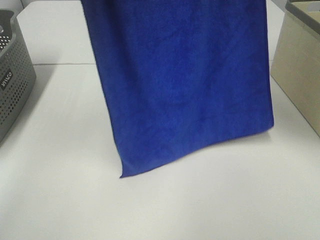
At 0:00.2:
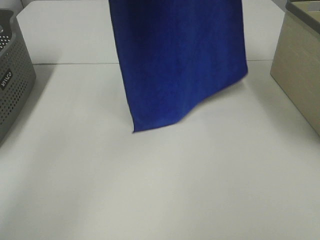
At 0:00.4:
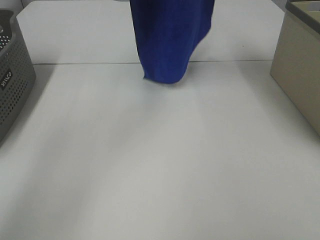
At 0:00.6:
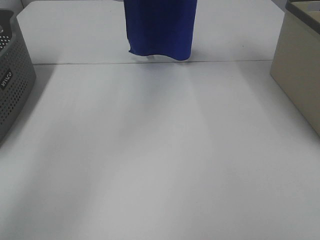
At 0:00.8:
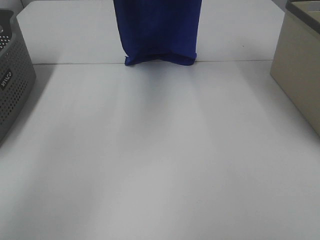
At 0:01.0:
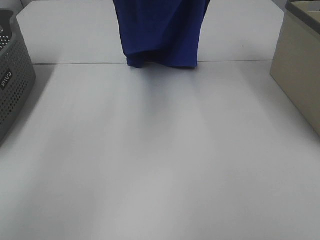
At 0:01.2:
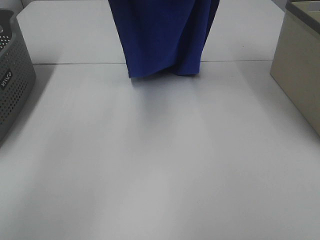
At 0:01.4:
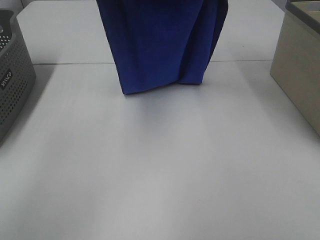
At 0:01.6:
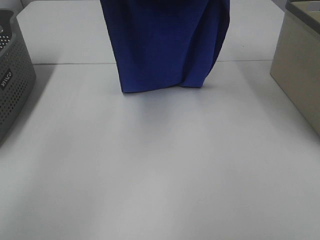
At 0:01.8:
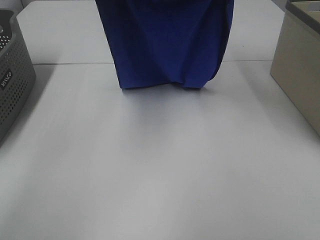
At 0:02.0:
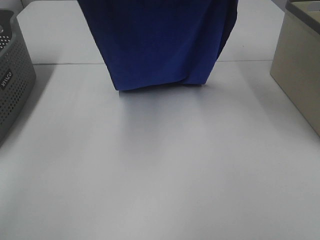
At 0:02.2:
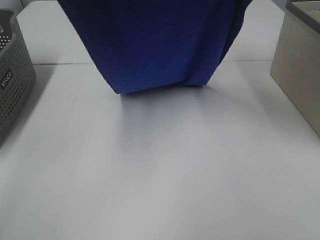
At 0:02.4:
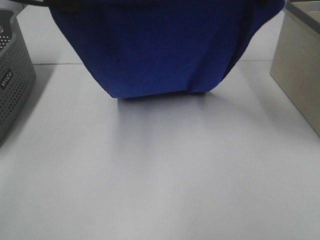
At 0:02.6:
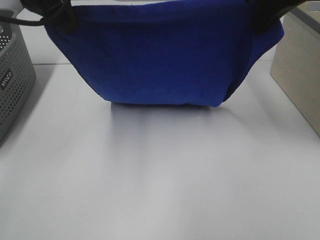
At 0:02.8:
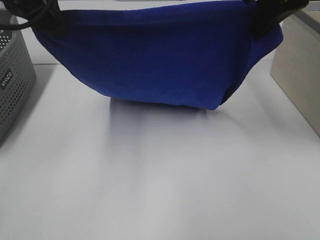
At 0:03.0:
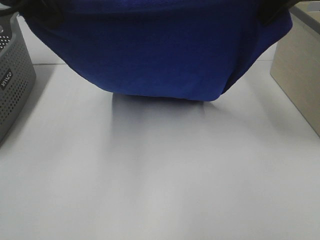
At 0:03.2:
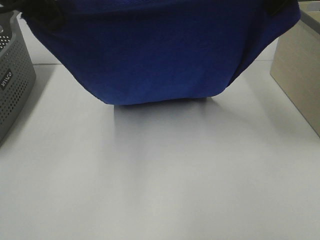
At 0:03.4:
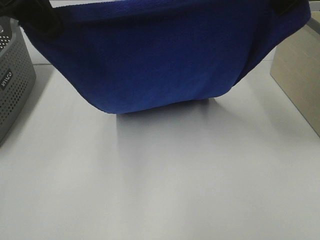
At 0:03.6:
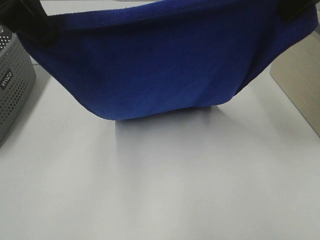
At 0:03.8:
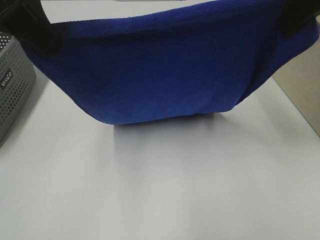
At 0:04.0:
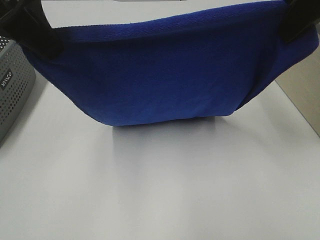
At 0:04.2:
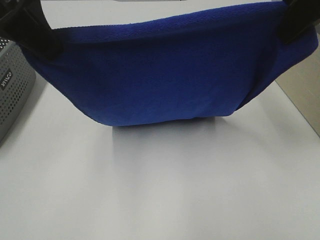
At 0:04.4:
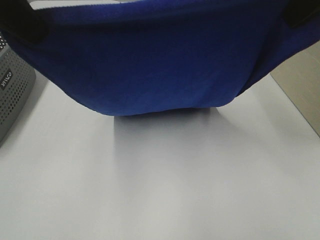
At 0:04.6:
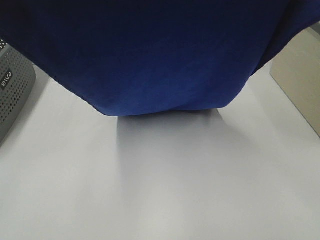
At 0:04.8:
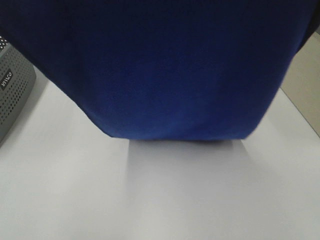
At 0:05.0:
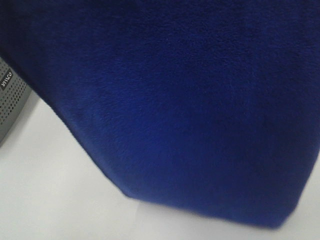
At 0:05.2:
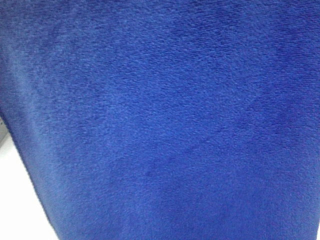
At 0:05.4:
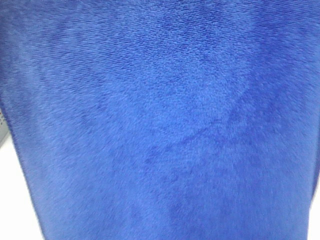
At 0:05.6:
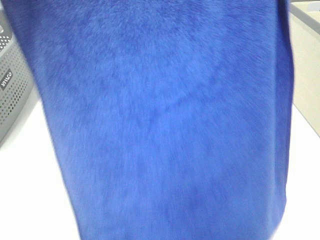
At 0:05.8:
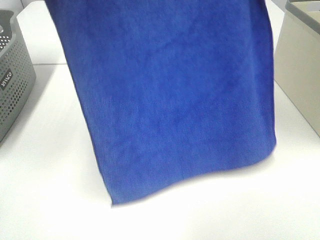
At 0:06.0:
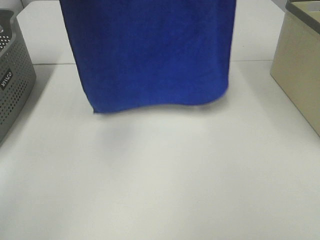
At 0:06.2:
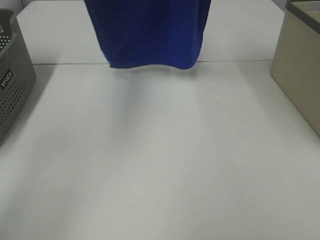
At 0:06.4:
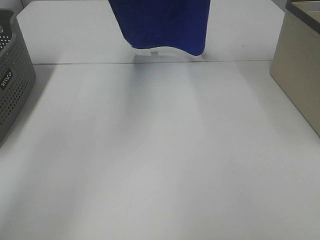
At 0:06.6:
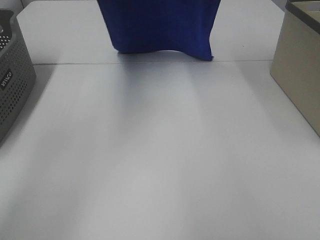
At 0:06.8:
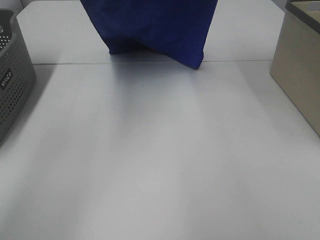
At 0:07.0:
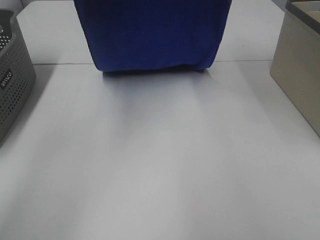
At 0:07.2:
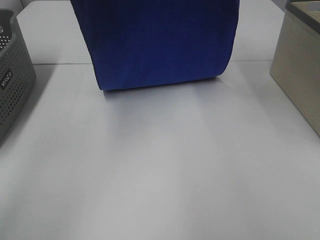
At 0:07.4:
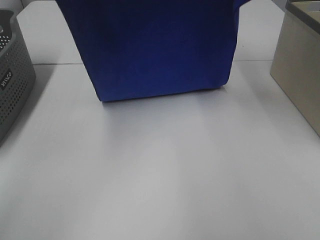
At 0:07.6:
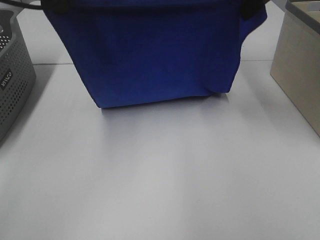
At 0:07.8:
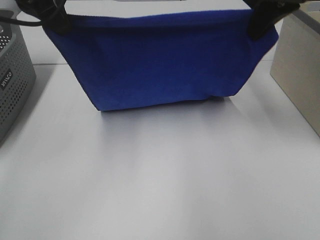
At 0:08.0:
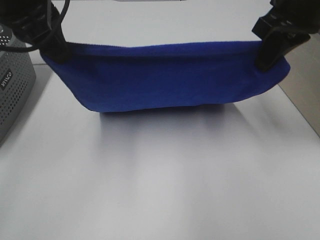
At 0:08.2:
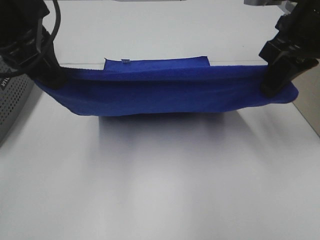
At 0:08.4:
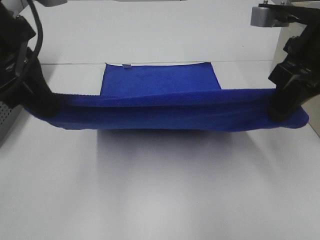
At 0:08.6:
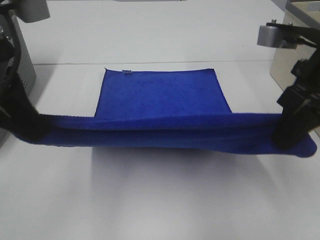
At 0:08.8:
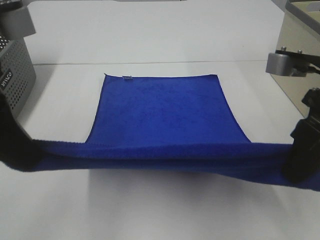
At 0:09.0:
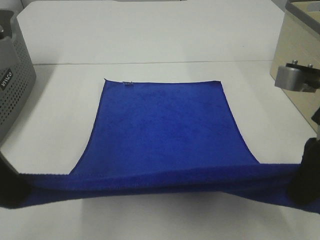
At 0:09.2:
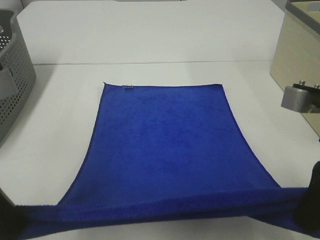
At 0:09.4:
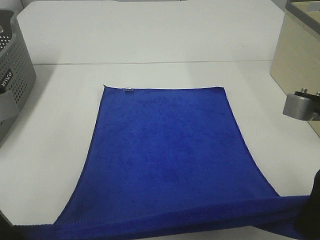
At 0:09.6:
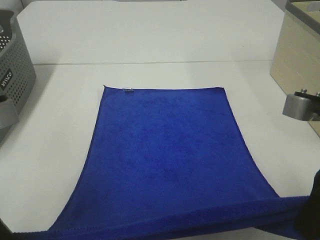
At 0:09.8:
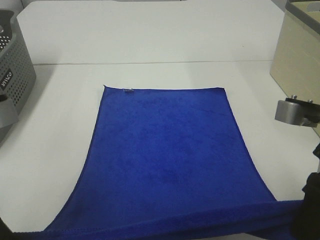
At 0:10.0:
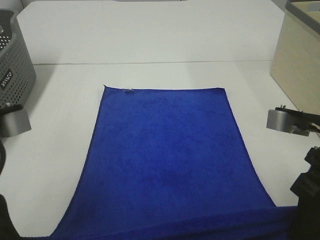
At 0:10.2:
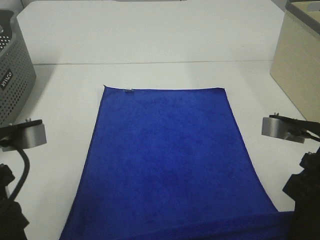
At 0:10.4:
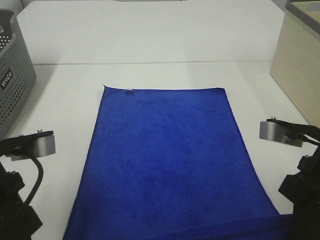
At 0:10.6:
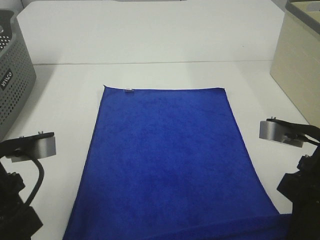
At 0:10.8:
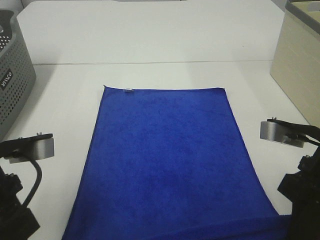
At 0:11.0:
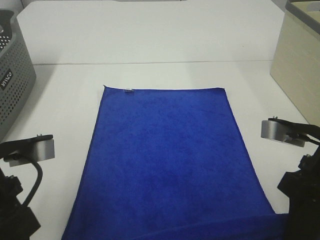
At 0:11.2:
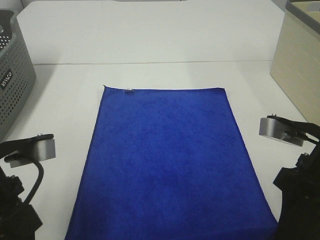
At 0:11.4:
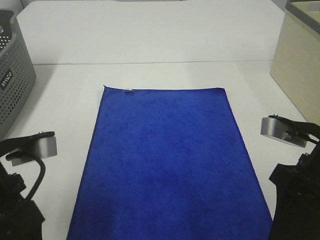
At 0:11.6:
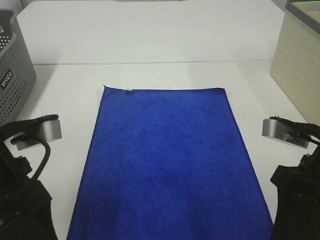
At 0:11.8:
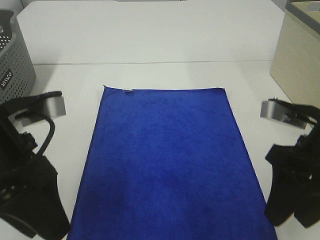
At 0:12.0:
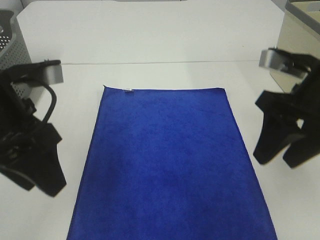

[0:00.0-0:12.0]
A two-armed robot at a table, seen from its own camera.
Task of the whole recording: Remove the towel and place it.
Step, 0:00.0 to 0:05.8: Left hand: spread the blue towel flat on the table.
Step, 0:00.0 to 0:05.8: Right hand: spread the blue towel flat on the table.
Step, 0:06.0 to 0:12.0: Left hand:adjust the blue towel.
Step, 0:06.0 to 0:12.0: Right hand:adjust the blue towel.
0:00.0 to 0:01.6: The right gripper goes approximately 10 cm downward and forward, while the left gripper heads downward, covering approximately 10 cm.
0:01.6 to 0:03.0: Both grippers move backward, roughly 10 cm.
0:03.0 to 0:04.4: Both grippers move backward, about 5 cm.
0:04.4 to 0:06.0: Both grippers move forward and upward, roughly 20 cm.
0:06.0 to 0:07.6: Both grippers travel together downward, some 15 cm.
0:07.6 to 0:09.0: The grippers both shift backward and downward by about 20 cm.
0:09.0 to 0:10.4: The two grippers go approximately 5 cm downward.
0:10.4 to 0:12.0: The grippers both shift forward and upward by about 10 cm. The left gripper opens its fingers; the right gripper opens up.

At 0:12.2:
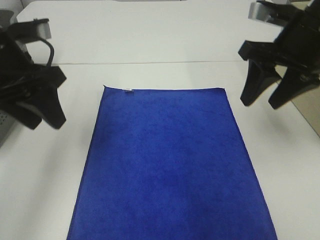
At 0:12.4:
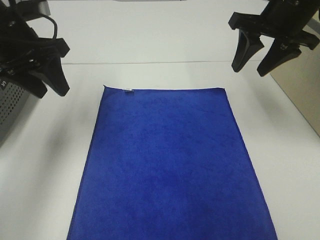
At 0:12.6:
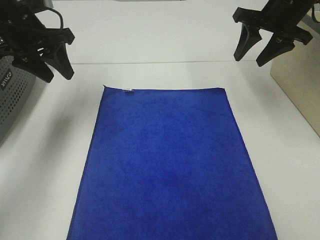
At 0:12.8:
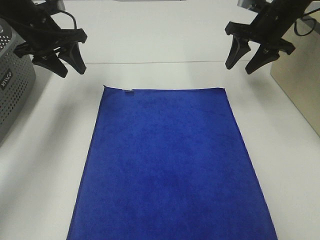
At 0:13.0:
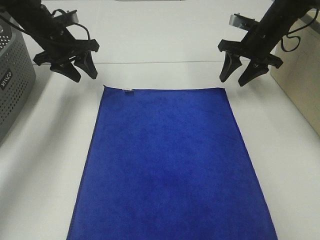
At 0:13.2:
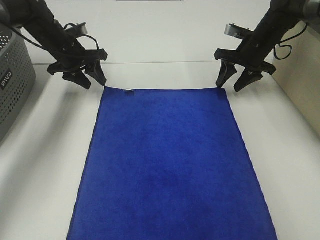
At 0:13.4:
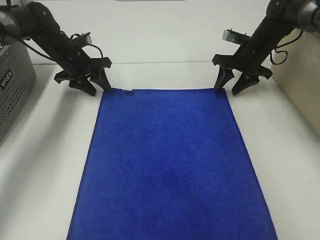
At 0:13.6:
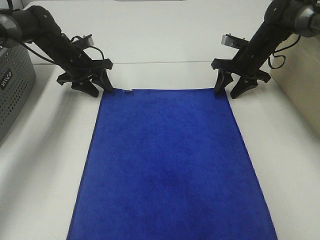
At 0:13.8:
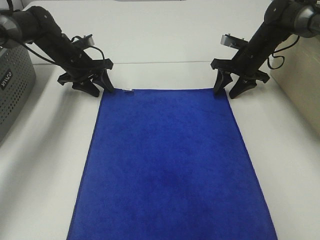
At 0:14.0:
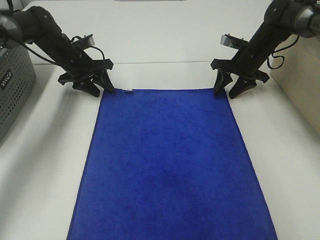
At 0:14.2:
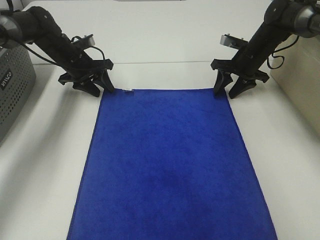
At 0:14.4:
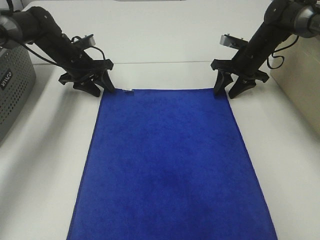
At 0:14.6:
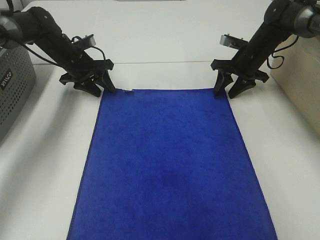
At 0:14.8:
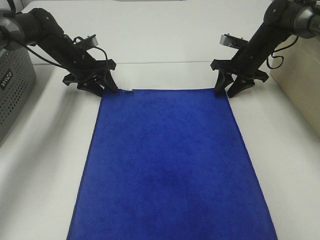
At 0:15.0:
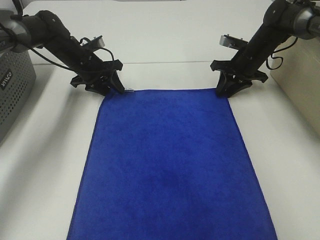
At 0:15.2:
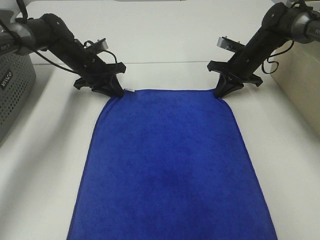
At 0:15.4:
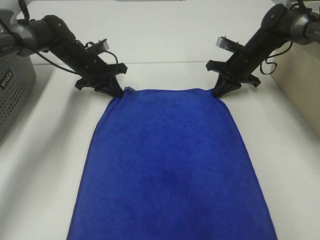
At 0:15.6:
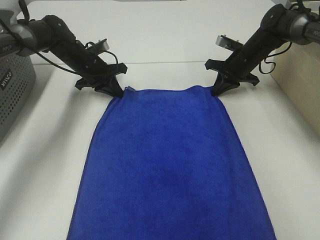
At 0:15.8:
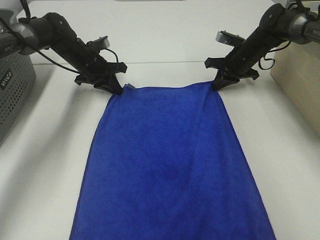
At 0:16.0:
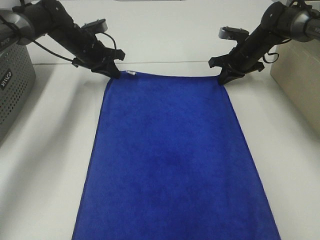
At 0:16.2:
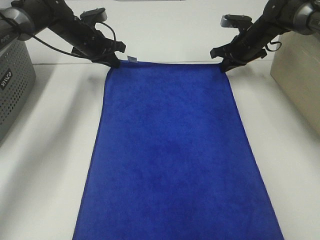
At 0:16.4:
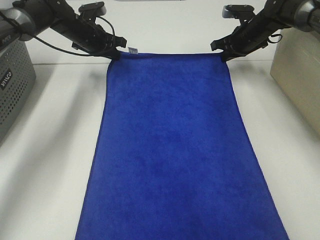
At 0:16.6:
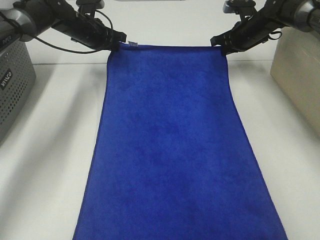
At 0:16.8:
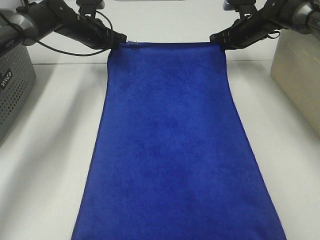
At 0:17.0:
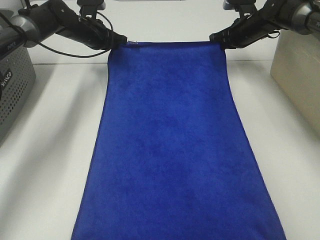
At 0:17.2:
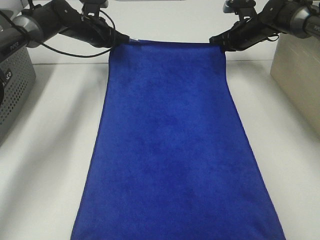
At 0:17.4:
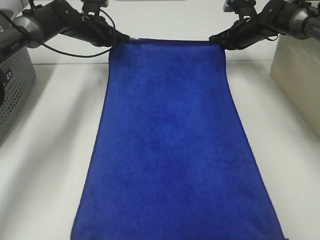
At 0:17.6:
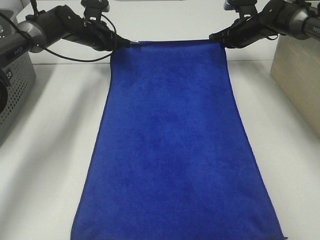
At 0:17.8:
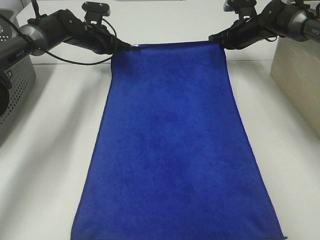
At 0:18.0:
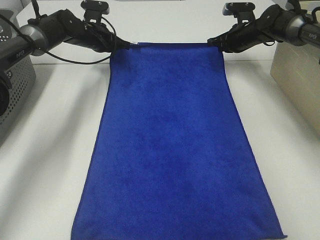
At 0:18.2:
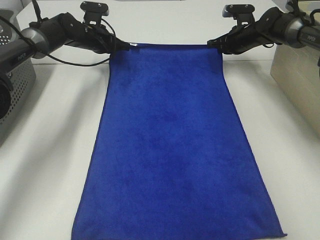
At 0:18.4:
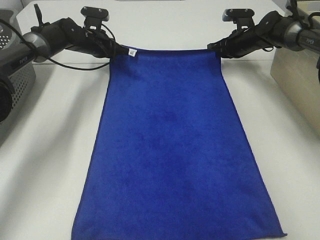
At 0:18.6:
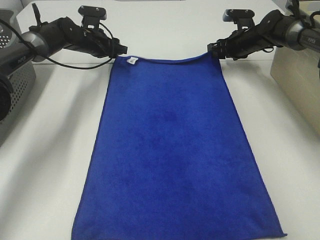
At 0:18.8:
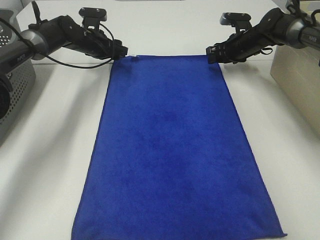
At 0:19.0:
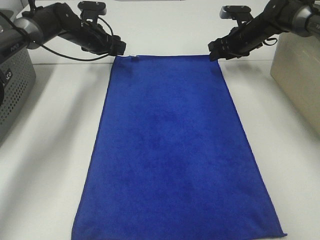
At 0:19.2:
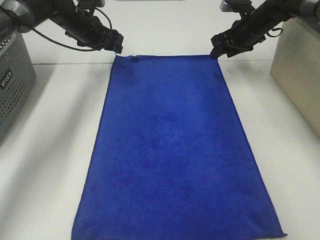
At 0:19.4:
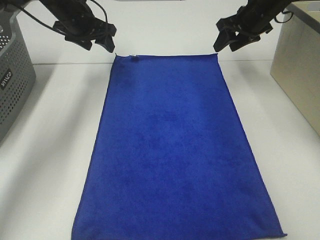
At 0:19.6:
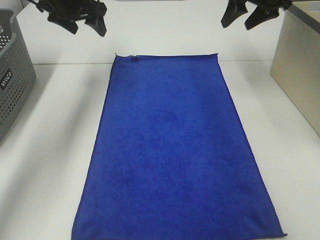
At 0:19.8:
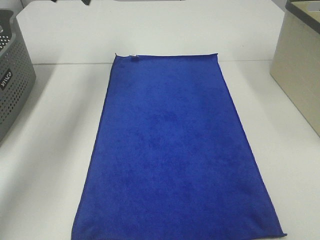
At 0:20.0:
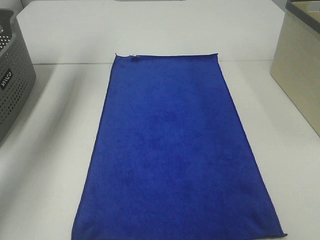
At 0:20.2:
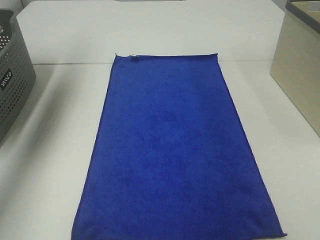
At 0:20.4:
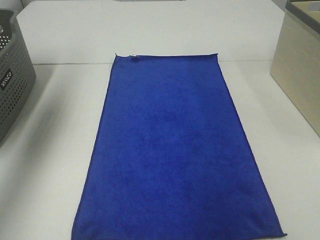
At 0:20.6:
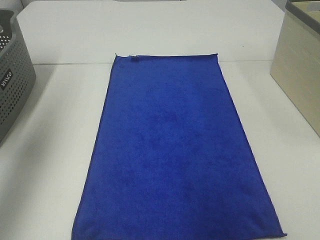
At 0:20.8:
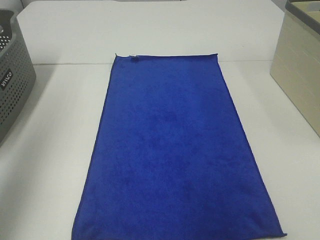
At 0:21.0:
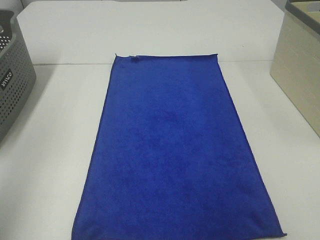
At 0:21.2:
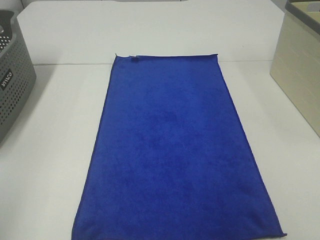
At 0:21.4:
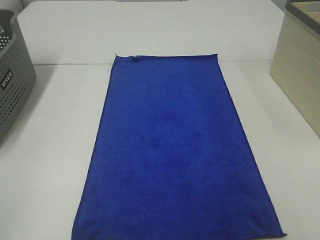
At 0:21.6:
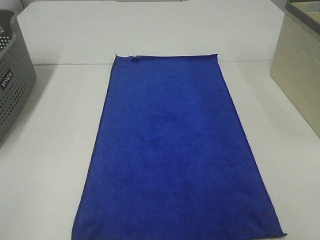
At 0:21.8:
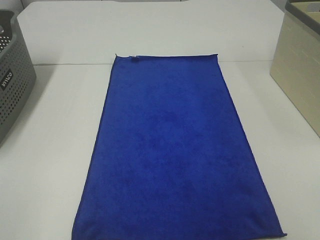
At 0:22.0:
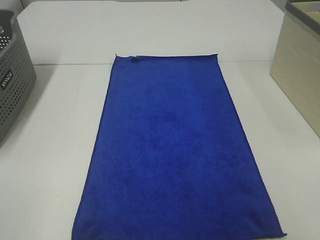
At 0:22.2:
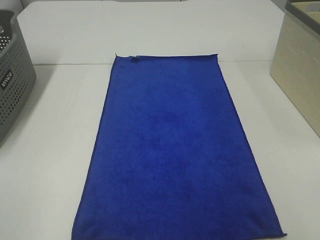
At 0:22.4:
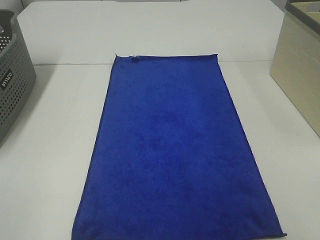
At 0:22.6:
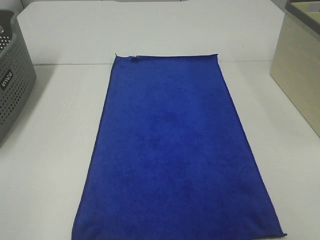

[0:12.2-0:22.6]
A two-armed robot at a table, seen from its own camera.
Task of the whole recording: Remove the towel and place it.
0:12.2 to 0:13.6: Both grippers travel together forward and downward, approximately 25 cm.
0:13.6 to 0:15.2: The right gripper closes.
0:15.2 to 0:16.6: The two grippers go approximately 10 cm upward and forward.
0:16.6 to 0:18.2: The grippers stay close to where they were, moving slightly.
0:18.2 to 0:19.6: Both grippers travel together upward and backward, roughly 20 cm. The right gripper opens its fingers; the left gripper opens its fingers.
0:19.6 to 0:21.2: The two grippers go some 50 cm backward.
